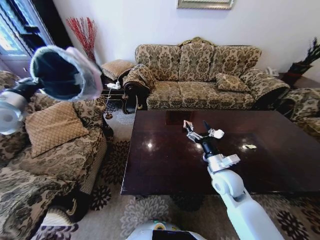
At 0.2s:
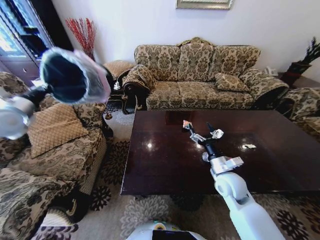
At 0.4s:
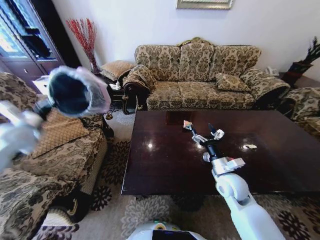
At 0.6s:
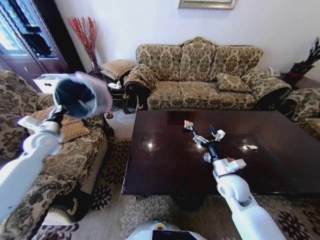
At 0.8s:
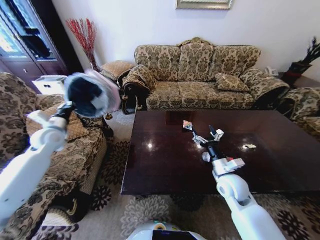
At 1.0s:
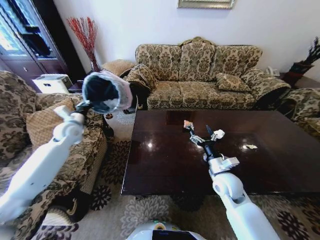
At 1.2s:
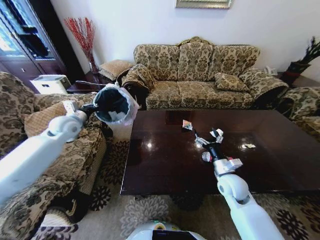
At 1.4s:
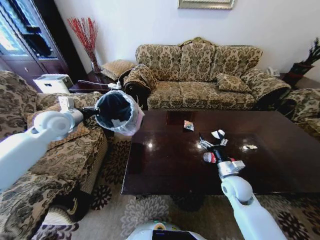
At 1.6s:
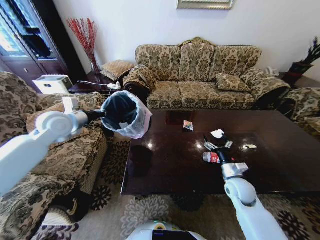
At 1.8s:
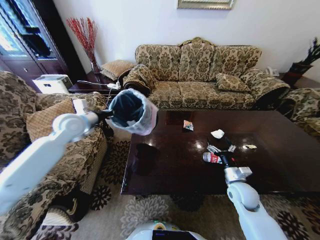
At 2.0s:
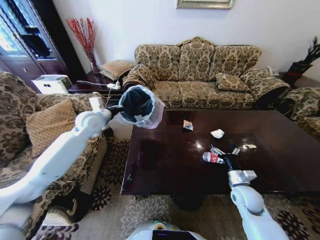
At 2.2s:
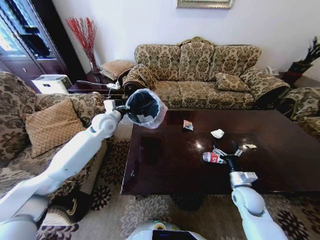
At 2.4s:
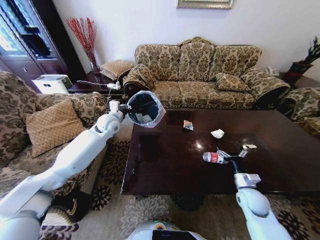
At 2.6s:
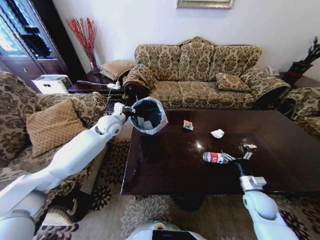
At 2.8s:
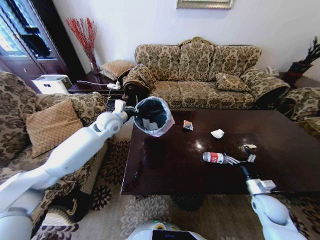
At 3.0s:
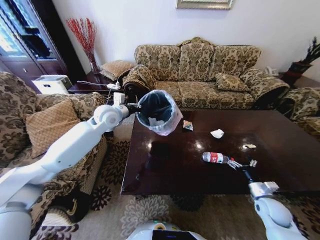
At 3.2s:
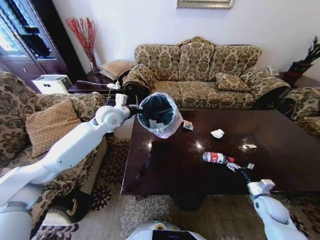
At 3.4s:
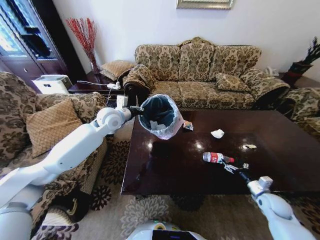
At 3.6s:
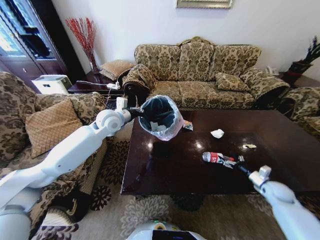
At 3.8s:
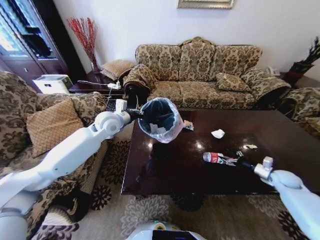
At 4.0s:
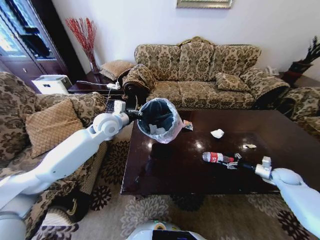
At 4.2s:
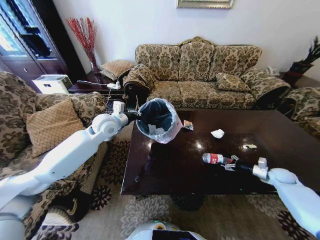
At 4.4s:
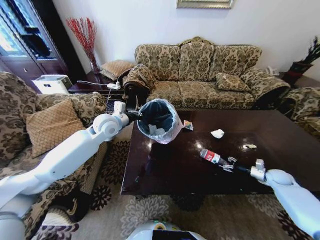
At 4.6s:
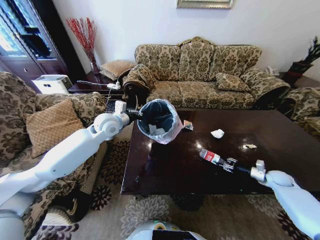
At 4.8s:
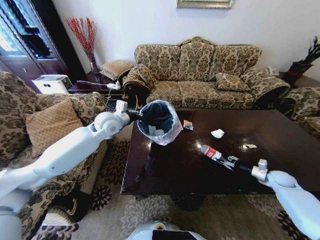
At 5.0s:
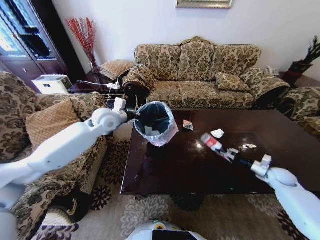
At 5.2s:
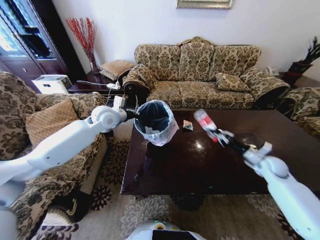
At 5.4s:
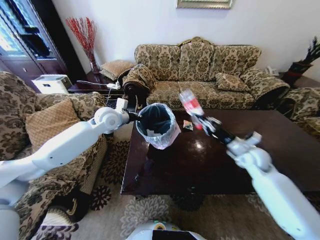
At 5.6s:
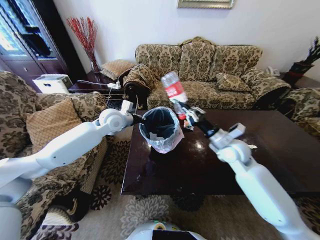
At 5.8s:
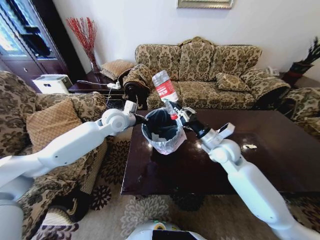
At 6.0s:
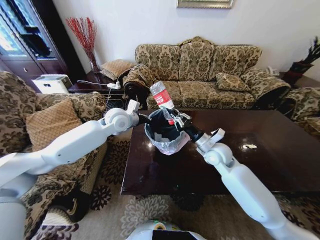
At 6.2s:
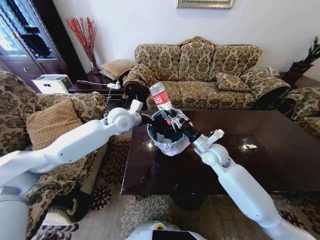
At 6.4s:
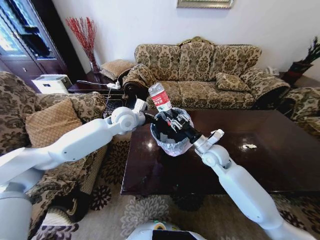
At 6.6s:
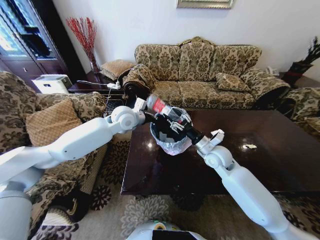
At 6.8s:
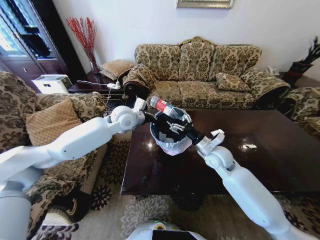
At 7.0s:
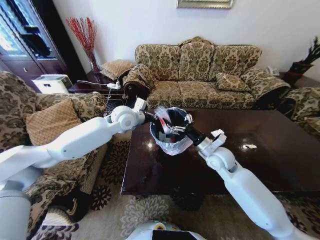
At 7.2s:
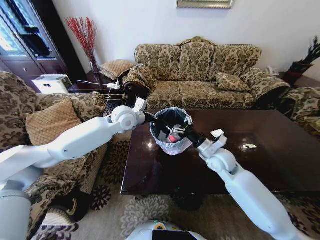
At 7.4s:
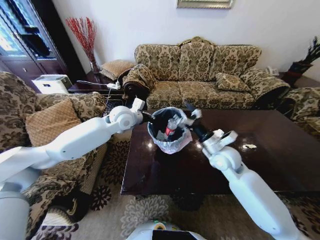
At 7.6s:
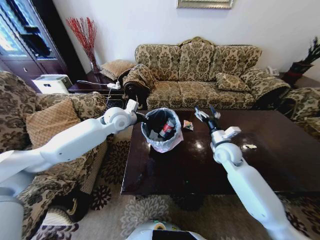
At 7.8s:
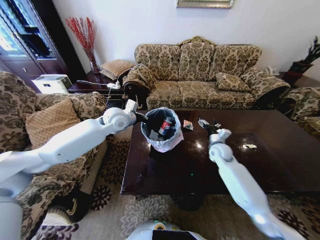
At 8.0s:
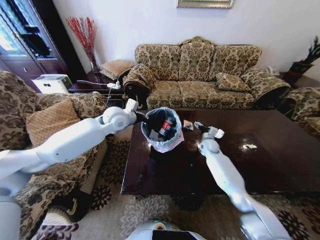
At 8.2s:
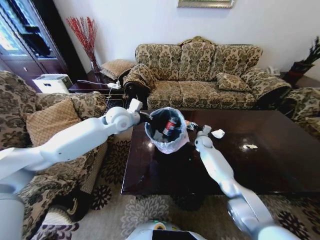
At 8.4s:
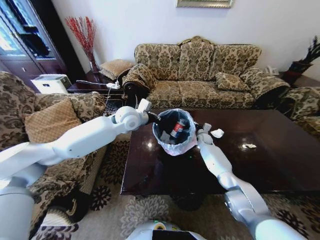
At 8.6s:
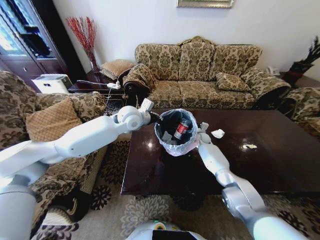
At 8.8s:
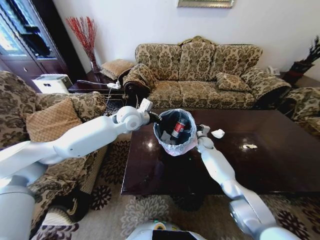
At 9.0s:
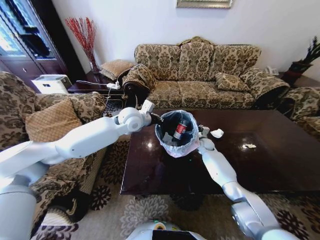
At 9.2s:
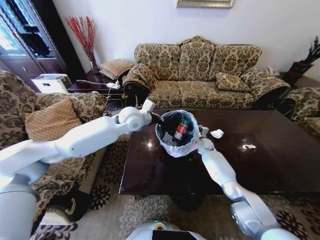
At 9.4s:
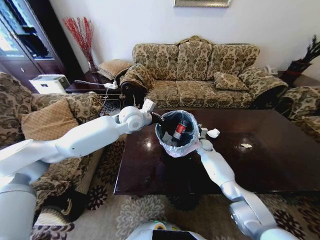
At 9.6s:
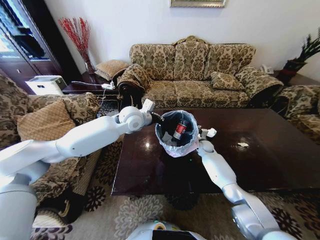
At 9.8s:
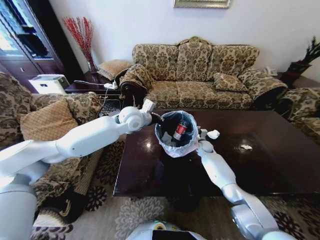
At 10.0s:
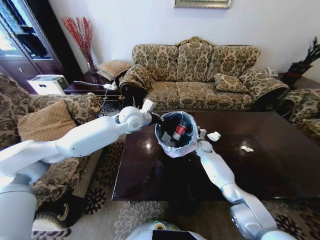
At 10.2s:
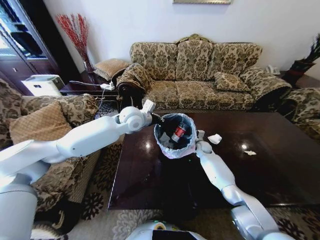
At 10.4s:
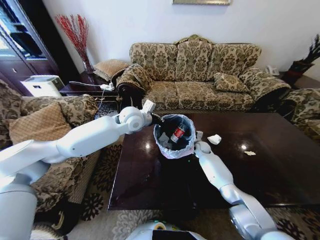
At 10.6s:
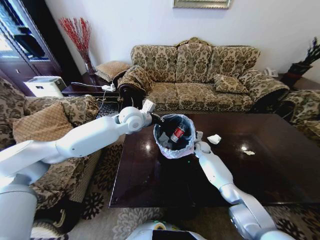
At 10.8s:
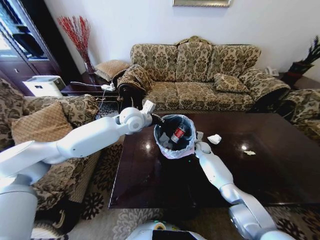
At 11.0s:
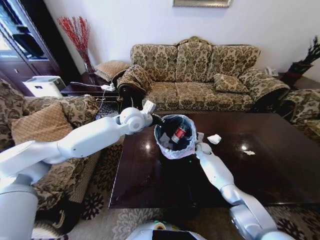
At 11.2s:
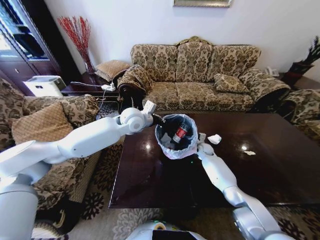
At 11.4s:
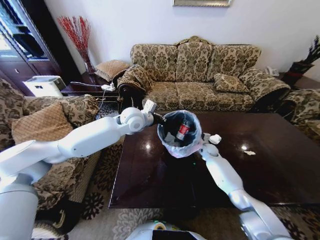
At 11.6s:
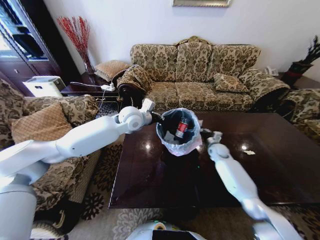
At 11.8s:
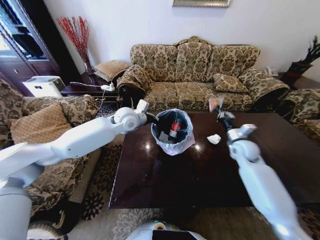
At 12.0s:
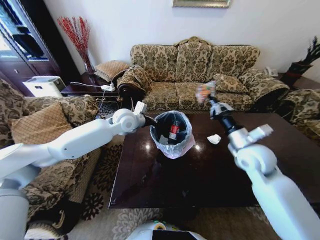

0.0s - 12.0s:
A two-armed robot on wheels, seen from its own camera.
Task of the whole recording: Move to the front of the table and place the trash on the table into the trash bin.
0.0s - 1.6s: The right gripper shifts about 10 cm to the right and downward. Meanwhile the left gripper goes some 20 cm to the right.
1.6s - 3.0s: The right gripper heads to the right, downward and backward, covering about 15 cm. The left gripper travels to the right and forward by roughly 15 cm.
3.0s - 4.4s: The right gripper moves to the right and forward, about 20 cm.
4.4s - 6.0s: The left gripper changes place by roughly 5 cm, while the right gripper goes some 40 cm to the left and upward, and closes.
6.0s - 7.6s: The right gripper travels to the right by about 5 cm, and opens.
7.6s - 9.0s: The right gripper shifts roughly 20 cm forward and downward, while the left gripper shifts roughly 5 cm to the right.
10.4s - 12.0s: The right gripper travels upward and backward by some 30 cm, and closes.

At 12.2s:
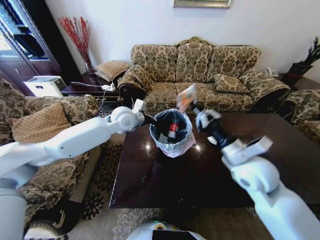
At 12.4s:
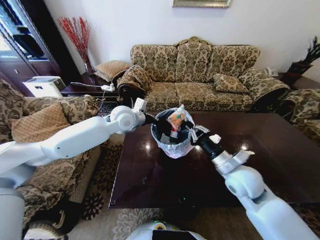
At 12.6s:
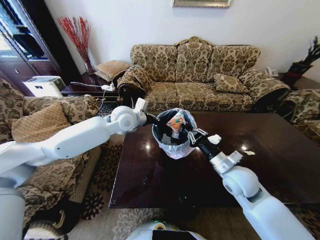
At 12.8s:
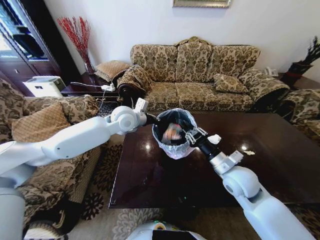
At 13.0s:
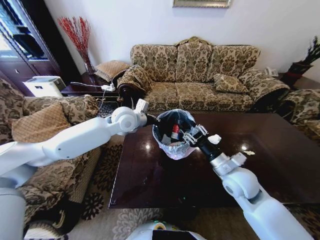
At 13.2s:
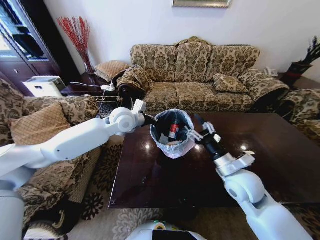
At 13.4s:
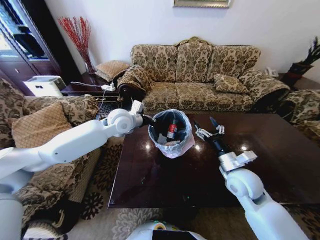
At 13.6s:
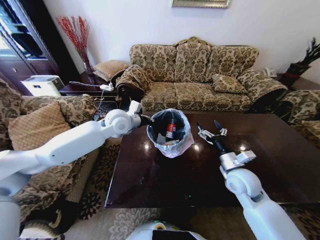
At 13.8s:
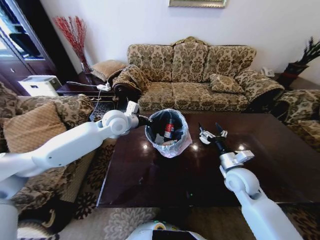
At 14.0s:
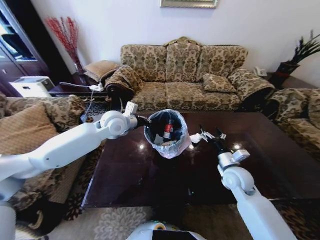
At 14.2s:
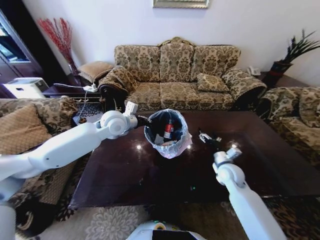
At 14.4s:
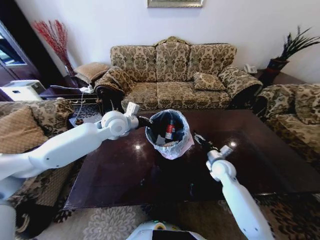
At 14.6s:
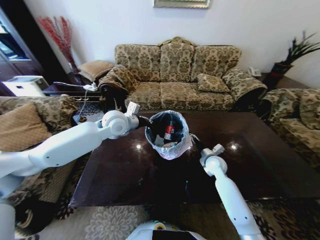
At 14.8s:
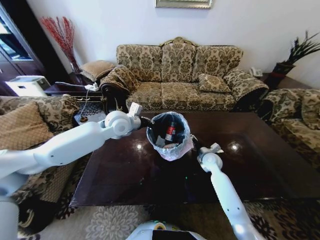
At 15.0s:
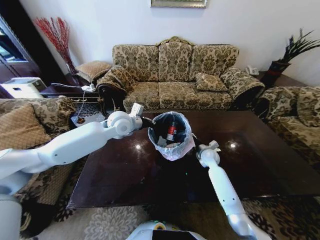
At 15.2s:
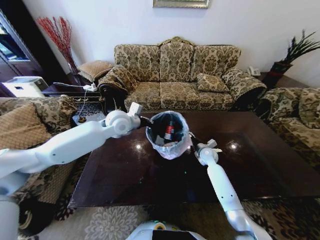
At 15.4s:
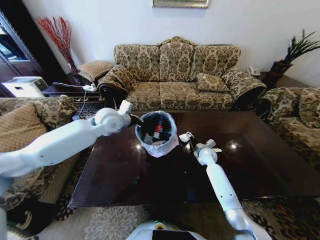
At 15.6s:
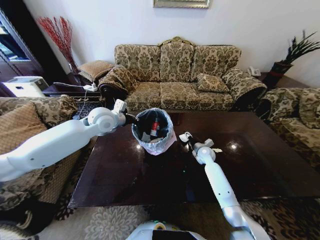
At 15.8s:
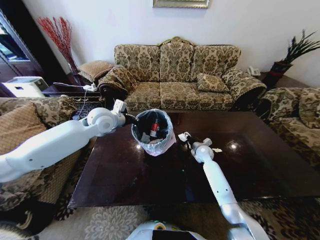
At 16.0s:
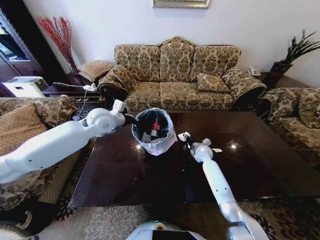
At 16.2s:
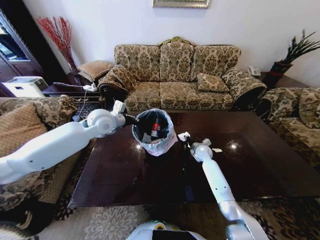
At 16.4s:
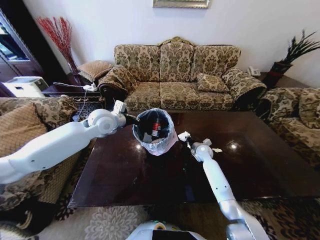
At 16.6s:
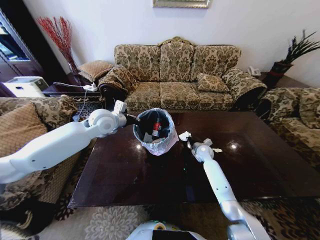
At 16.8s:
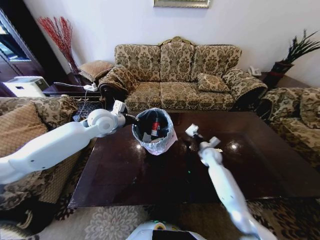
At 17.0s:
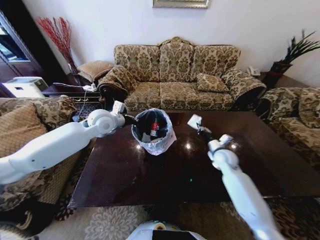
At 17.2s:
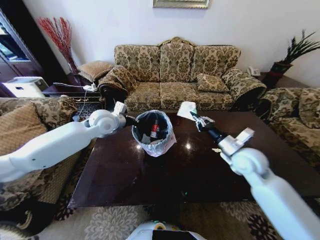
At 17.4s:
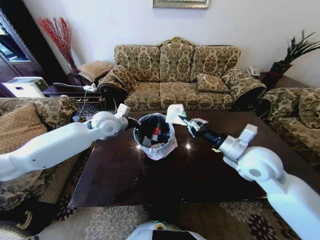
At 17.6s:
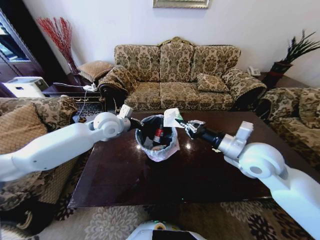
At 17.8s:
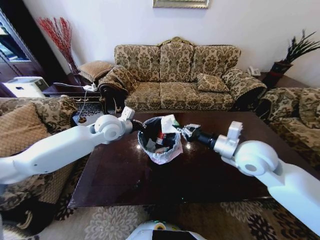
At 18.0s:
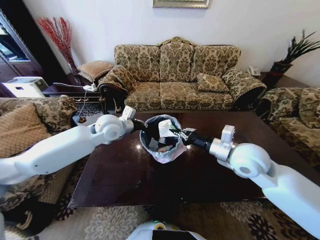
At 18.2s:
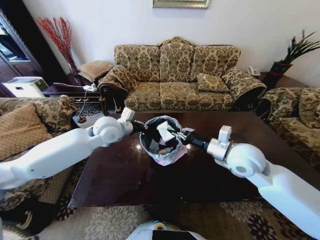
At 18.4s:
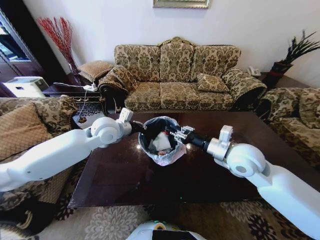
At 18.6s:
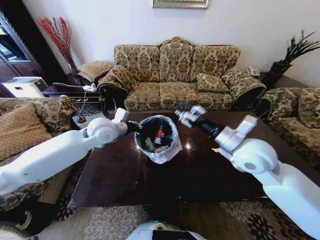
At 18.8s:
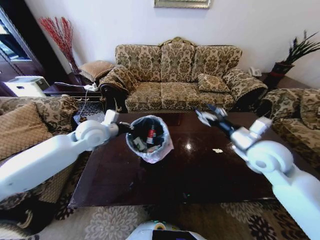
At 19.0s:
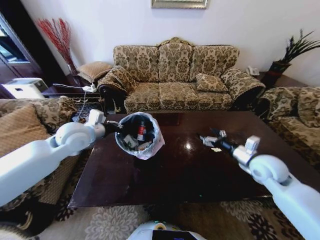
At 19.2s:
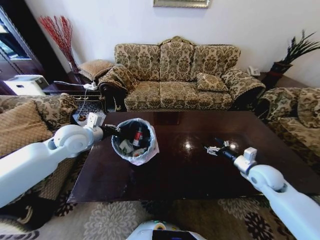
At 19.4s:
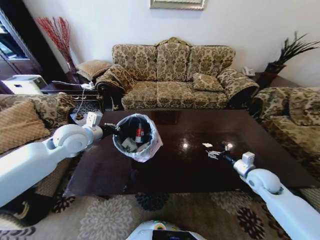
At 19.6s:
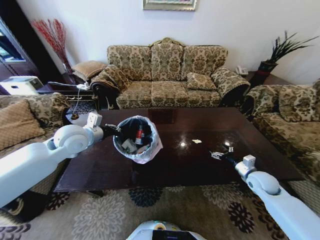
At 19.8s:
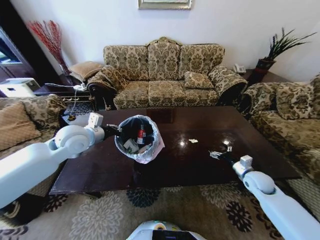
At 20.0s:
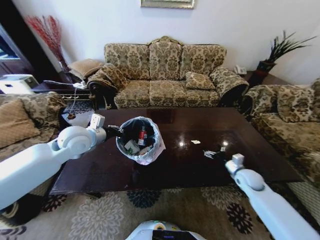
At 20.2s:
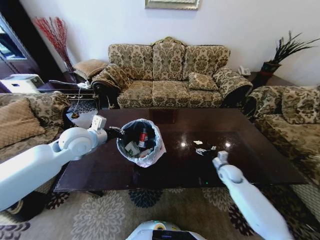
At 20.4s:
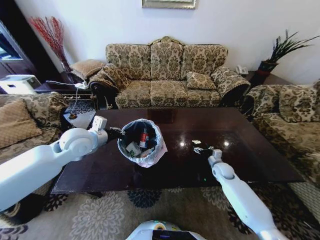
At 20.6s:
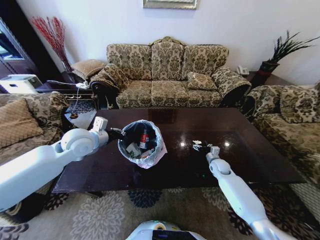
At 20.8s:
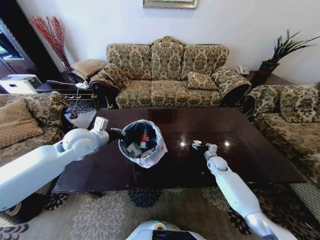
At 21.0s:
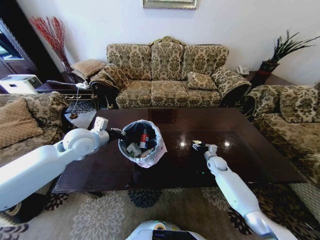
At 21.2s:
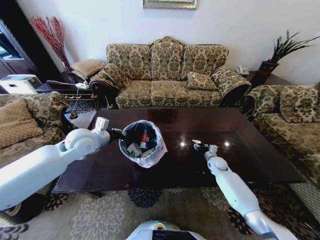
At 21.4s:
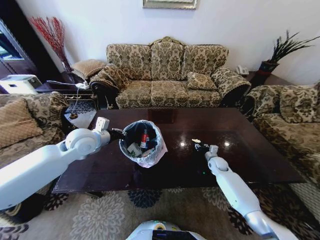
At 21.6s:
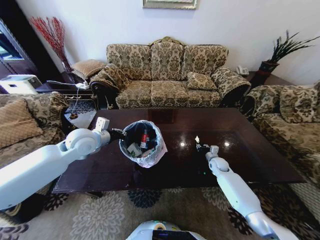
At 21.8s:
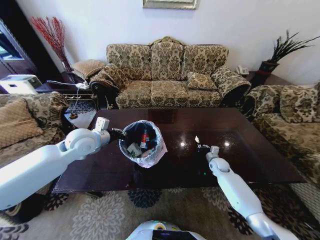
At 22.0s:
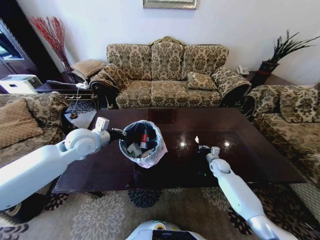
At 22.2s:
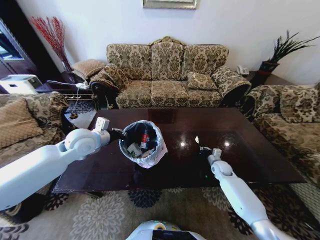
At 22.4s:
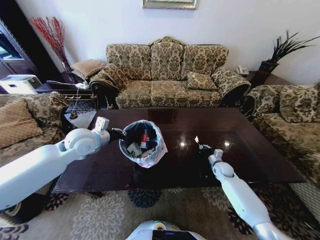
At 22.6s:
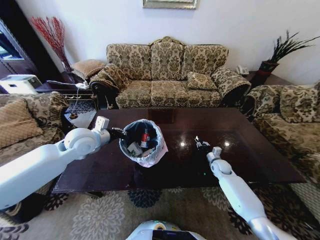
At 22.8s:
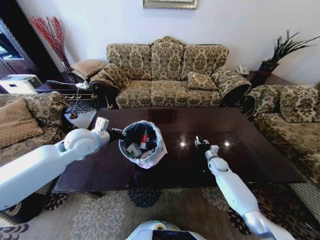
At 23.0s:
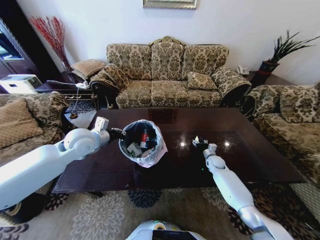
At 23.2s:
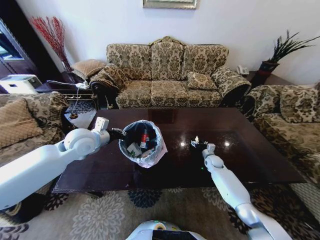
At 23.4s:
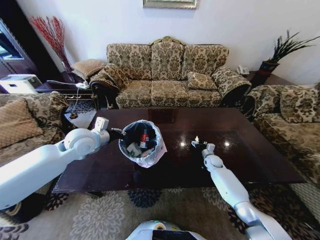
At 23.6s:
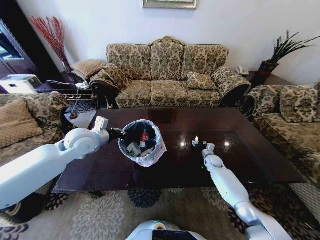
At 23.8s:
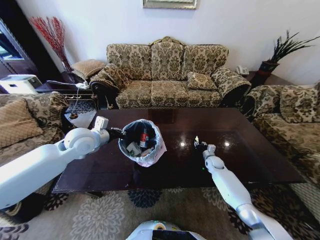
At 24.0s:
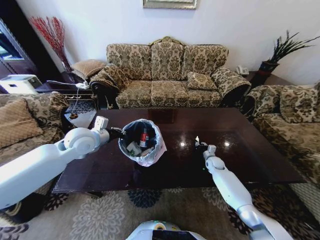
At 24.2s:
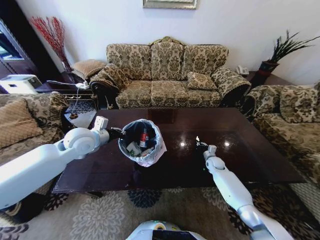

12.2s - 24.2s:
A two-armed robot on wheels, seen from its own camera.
Task of the whole recording: Move to the front of the table and place the trash on the table into the trash bin.
12.2s - 13.8s: The right gripper goes roughly 10 cm downward, and opens up.
13.8s - 15.2s: The right gripper shifts approximately 20 cm forward and downward.
15.2s - 16.6s: The right gripper closes its fingers; the left gripper shifts some 5 cm to the left.
16.6s - 18.2s: The right gripper heads upward and backward, covering about 30 cm; the left gripper moves roughly 5 cm.
18.2s - 19.8s: The left gripper goes some 10 cm to the left. Meanwhile the right gripper heads downward and to the right, covering some 30 cm, and opens its fingers.
19.8s - 21.2s: The right gripper is displaced forward, to the left and downward by some 20 cm, and closes up.
21.2s - 22.6s: The right gripper closes its fingers.
22.6s - 24.2s: The right gripper opens and closes again.
